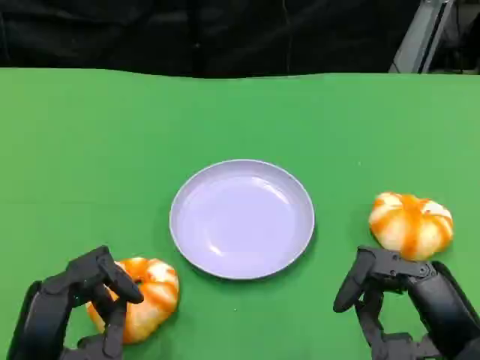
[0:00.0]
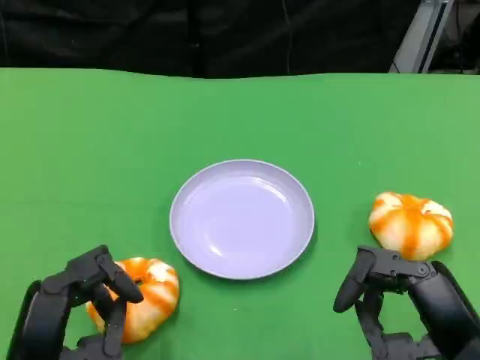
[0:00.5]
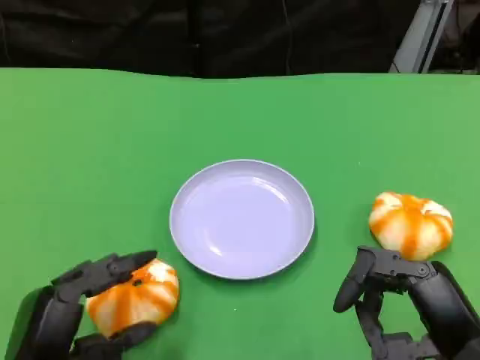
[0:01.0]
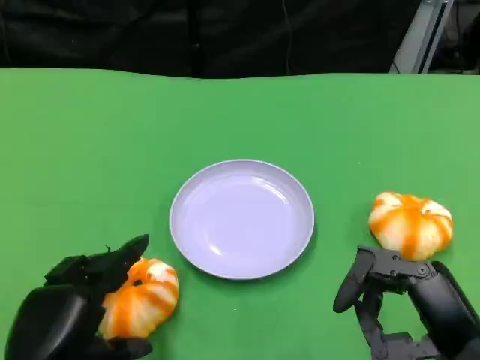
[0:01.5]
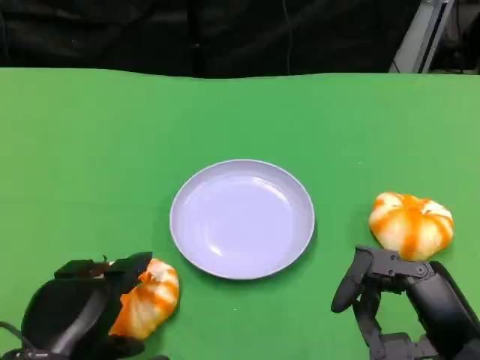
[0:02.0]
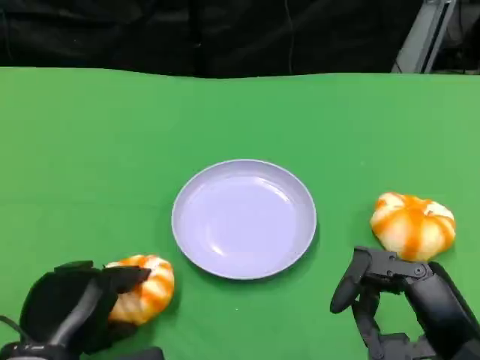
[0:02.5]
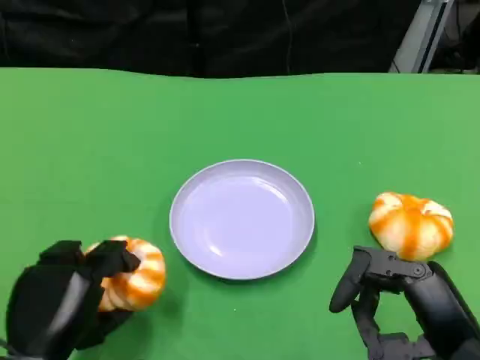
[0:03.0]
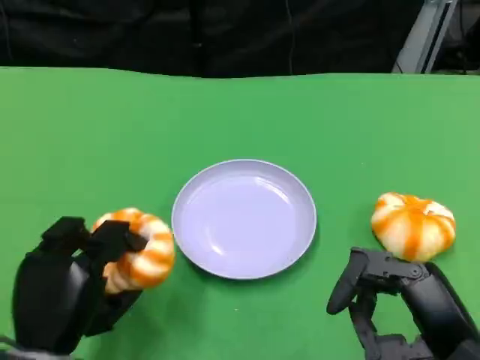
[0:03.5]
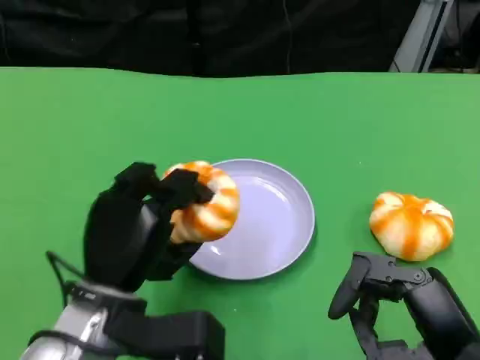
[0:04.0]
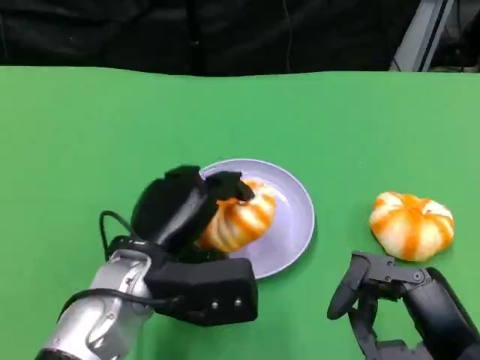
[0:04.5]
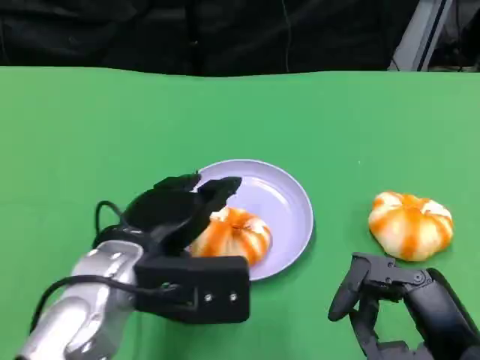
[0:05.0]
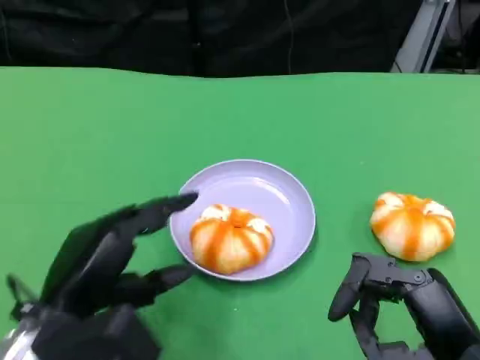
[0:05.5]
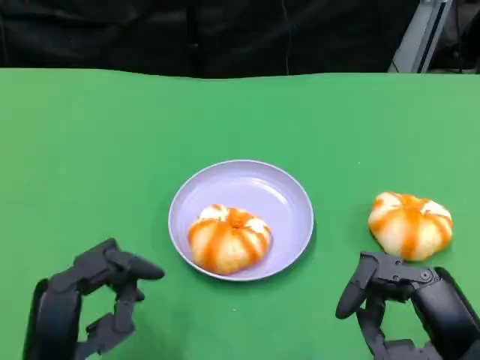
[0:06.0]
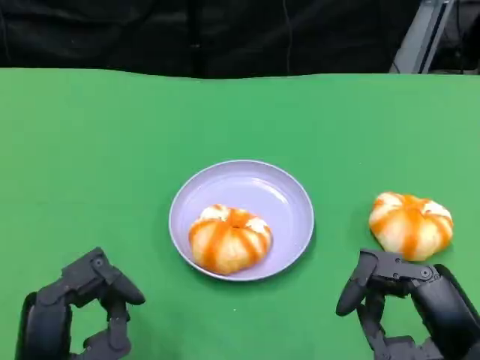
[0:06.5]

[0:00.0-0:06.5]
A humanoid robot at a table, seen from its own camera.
Task of the whole recording: Grasp the bread from the table and place it into the plate.
0:02.0 to 0:04.5: The left hand heads forward and to the right, covering some 10 cm.
0:04.5 to 0:06.5: The left hand travels backward and to the left by roughly 15 cm.

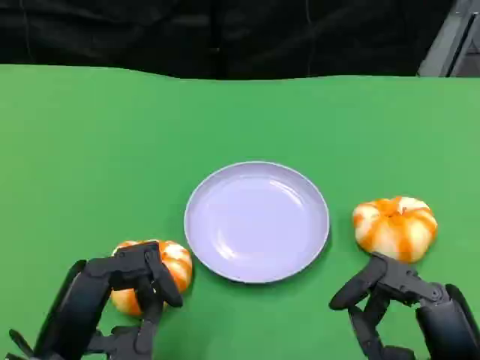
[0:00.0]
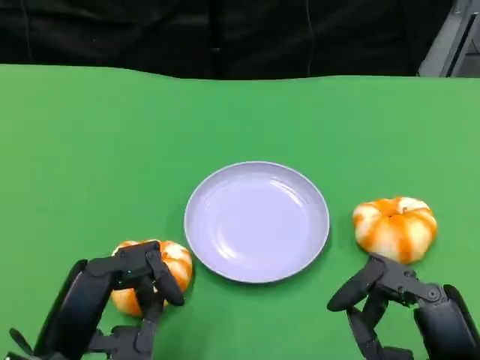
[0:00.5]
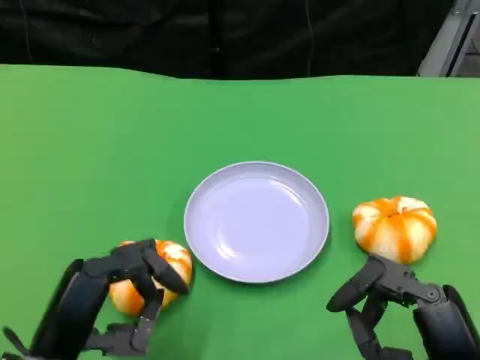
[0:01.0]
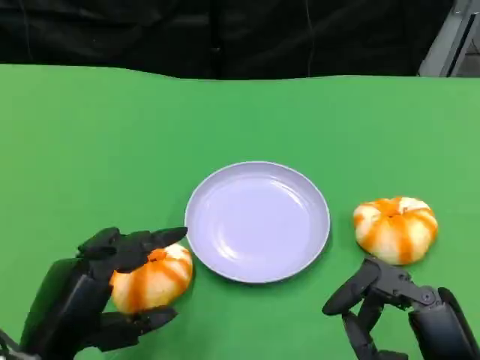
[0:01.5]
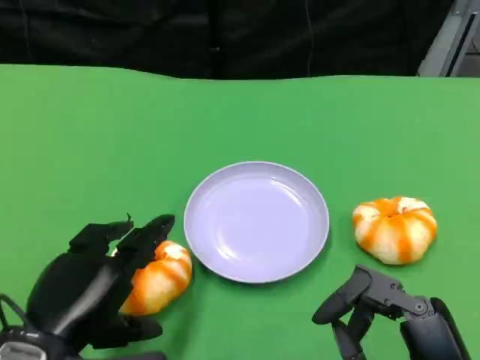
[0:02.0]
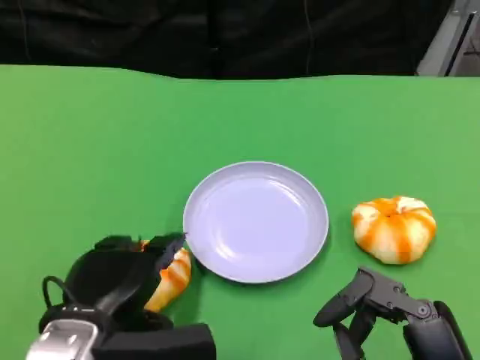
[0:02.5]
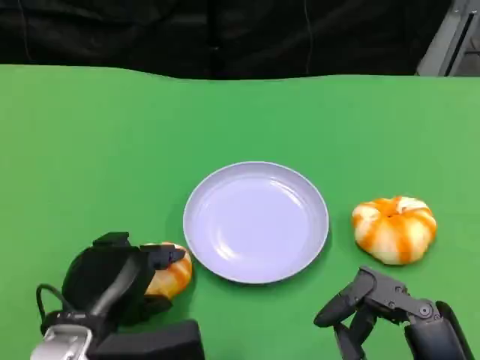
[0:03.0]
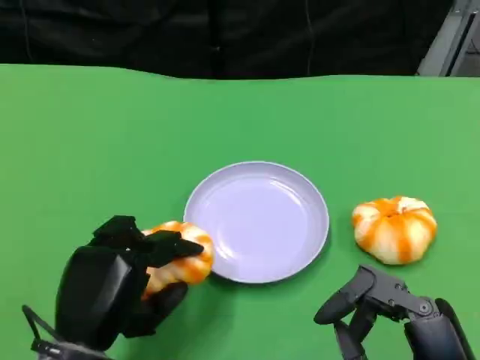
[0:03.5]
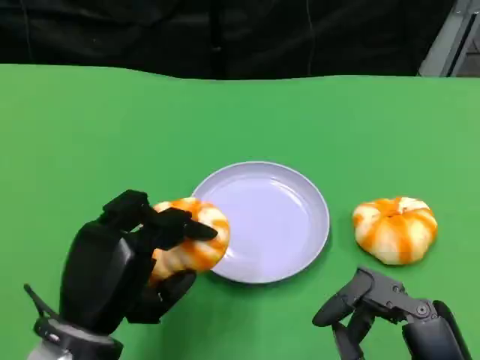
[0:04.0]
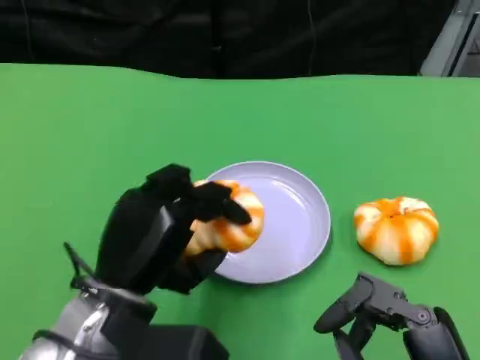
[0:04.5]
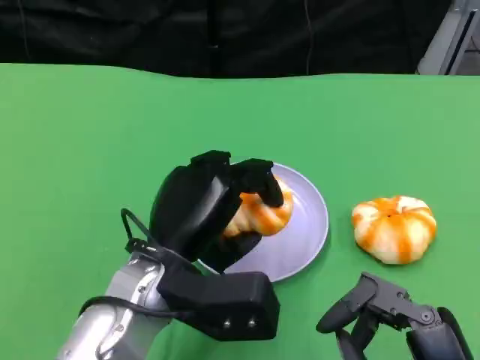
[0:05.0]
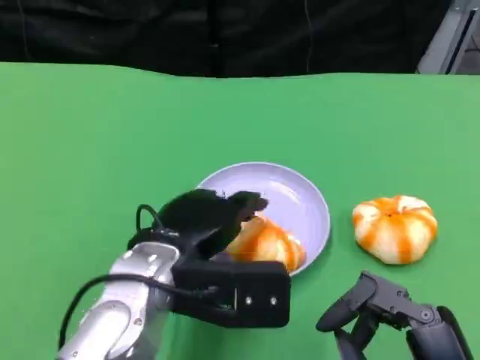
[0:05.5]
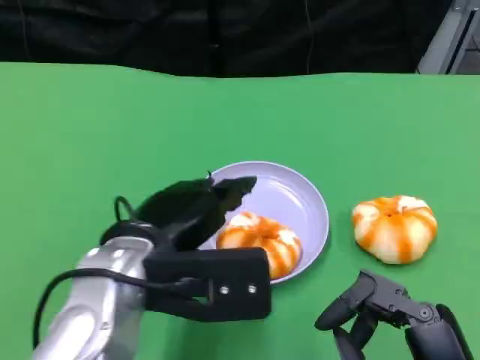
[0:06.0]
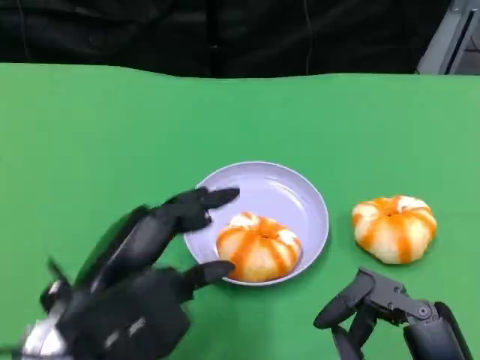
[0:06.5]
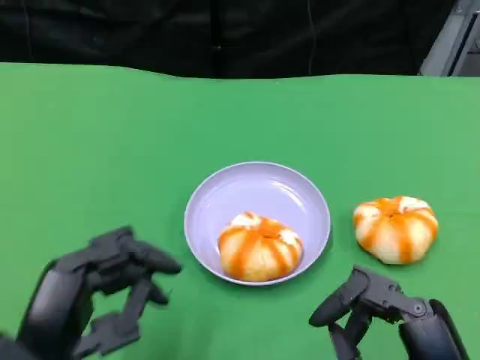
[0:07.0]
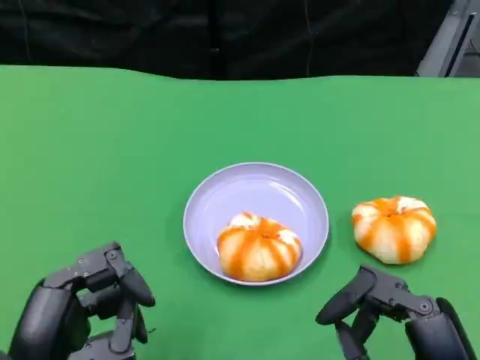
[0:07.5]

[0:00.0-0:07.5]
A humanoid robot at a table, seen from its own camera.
Task of the whole recording: Grasp the bread from the table and place it into the plate.
0:04.0 to 0:05.5: The left hand travels to the right and forward by roughly 10 cm.
0:05.5 to 0:07.5: The left hand heads backward and to the left, covering approximately 15 cm.

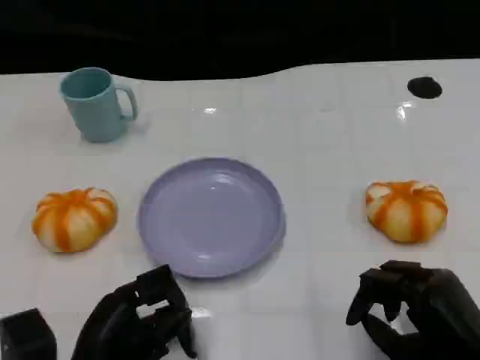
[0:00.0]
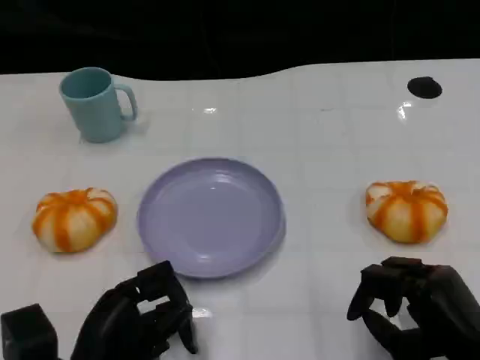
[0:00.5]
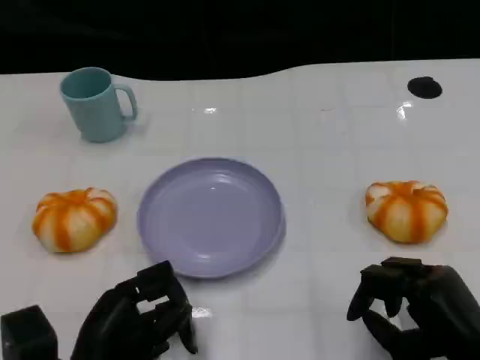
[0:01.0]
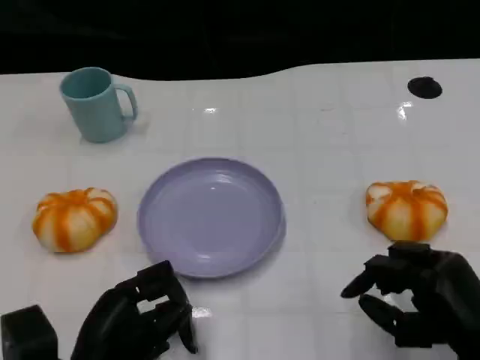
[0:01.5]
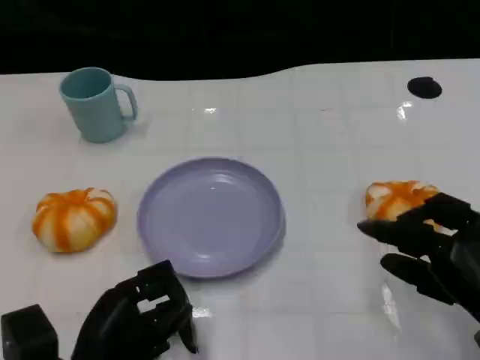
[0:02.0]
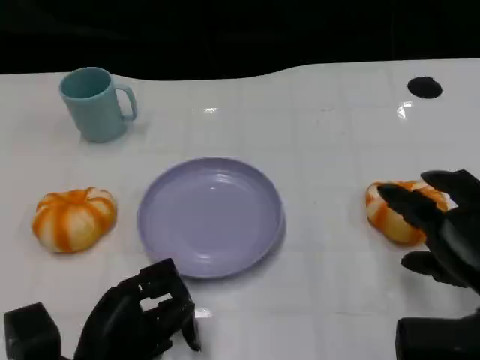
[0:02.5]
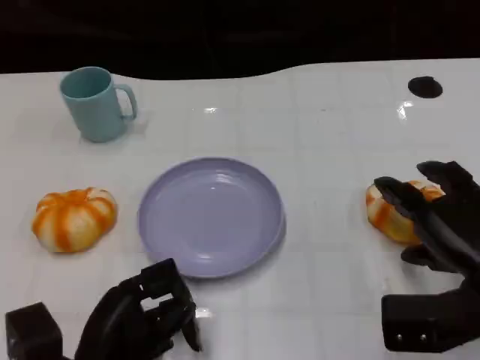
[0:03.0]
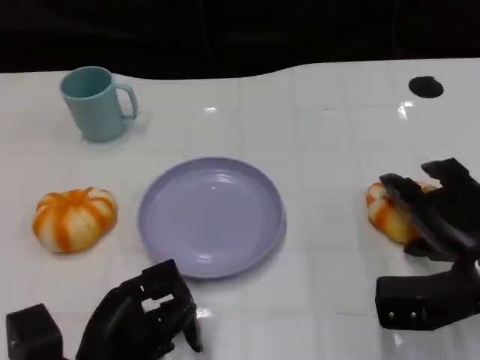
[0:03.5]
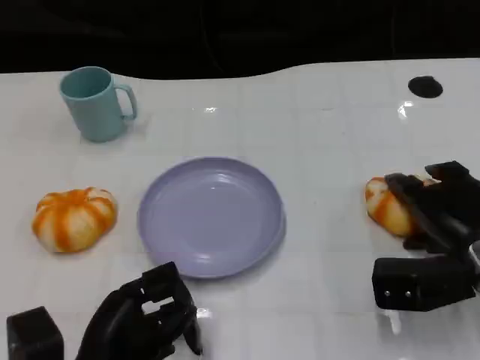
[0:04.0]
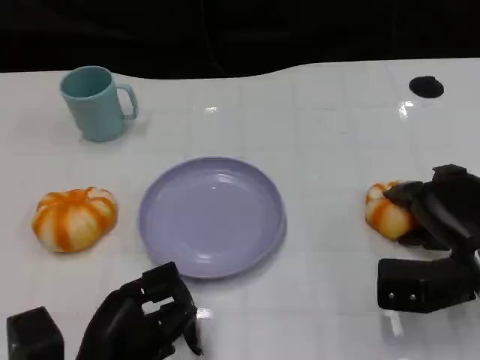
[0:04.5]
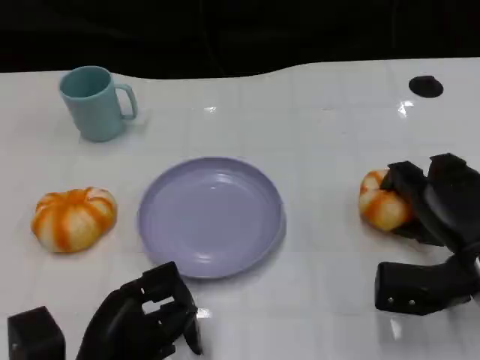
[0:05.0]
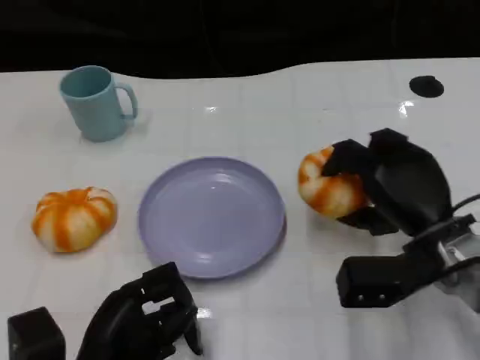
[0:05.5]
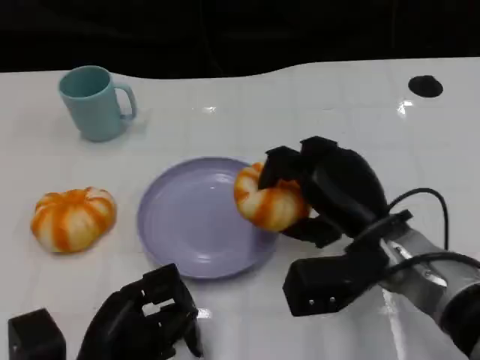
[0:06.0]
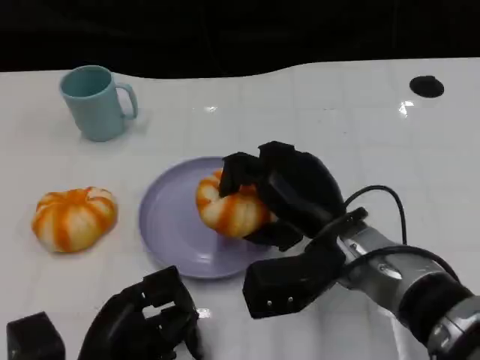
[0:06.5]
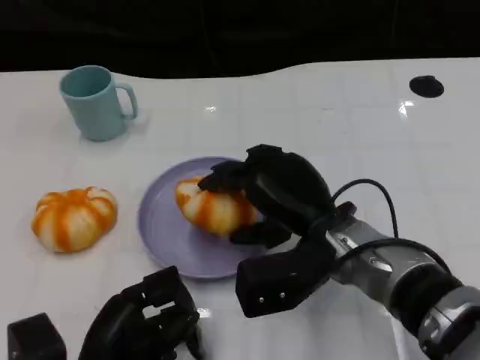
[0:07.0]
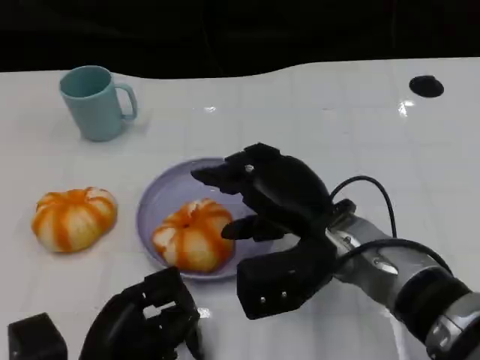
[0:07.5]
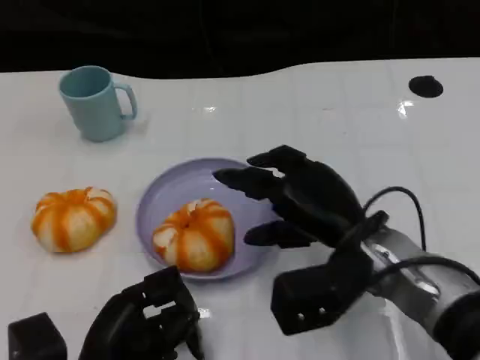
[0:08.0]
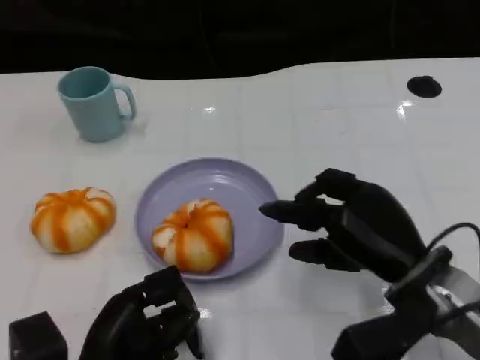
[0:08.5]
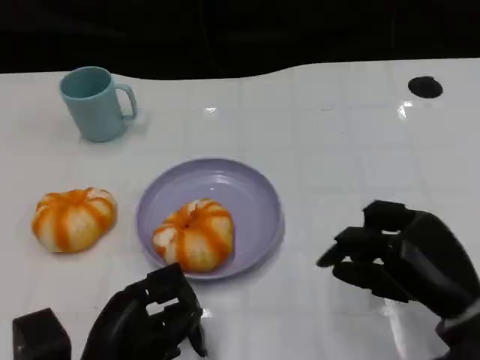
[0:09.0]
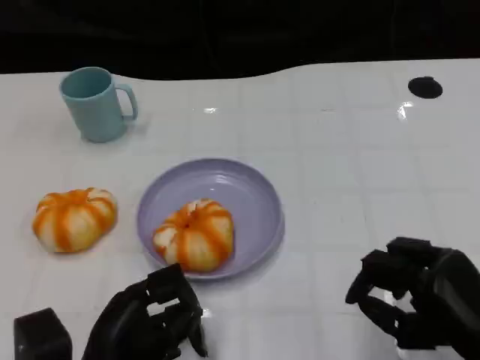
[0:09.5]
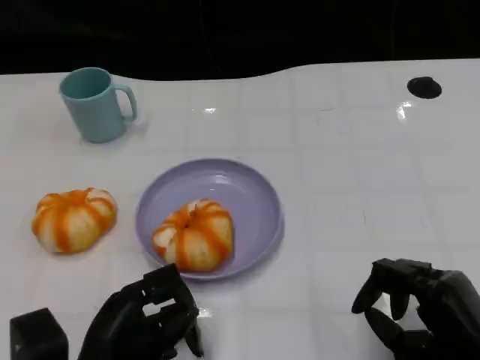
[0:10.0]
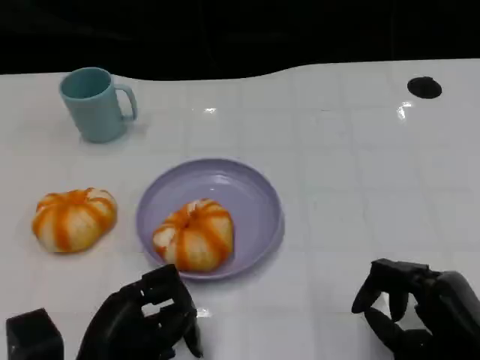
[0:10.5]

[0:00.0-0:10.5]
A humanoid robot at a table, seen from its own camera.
Task of the whole recording: Grasp the bread from the table and place it into the plate.
0:00.0 to 0:02.0: The right hand changes place by approximately 5 cm.
0:02.0 to 0:04.0: The right hand is displaced forward by about 10 cm.
0:04.0 to 0:06.5: The right hand heads to the left, covering about 15 cm.
0:06.5 to 0:08.5: The right hand heads to the right, covering approximately 10 cm.
0:08.5 to 0:10.5: The right hand shifts roughly 10 cm backward and to the right.

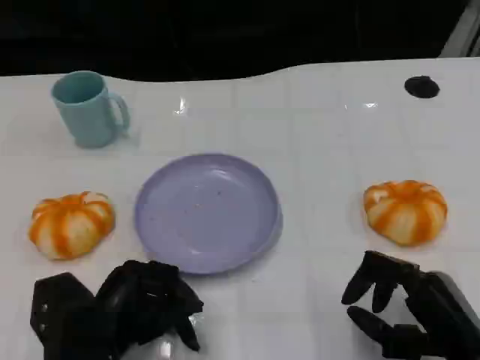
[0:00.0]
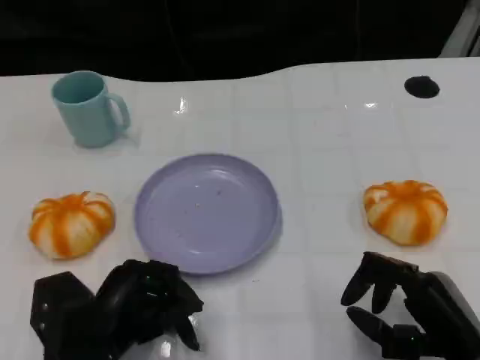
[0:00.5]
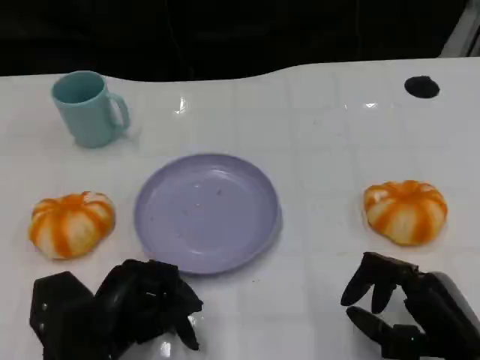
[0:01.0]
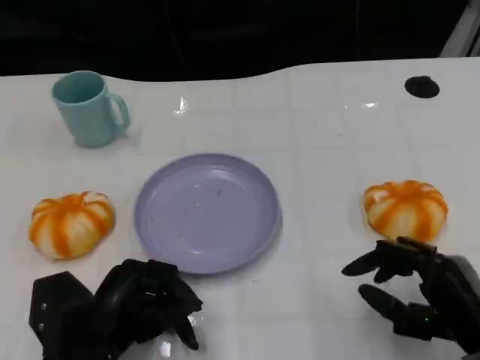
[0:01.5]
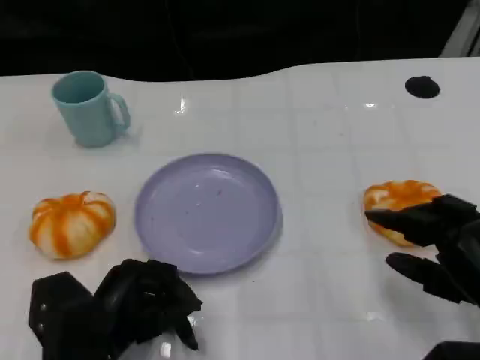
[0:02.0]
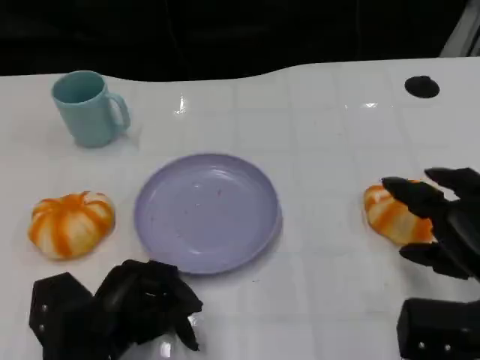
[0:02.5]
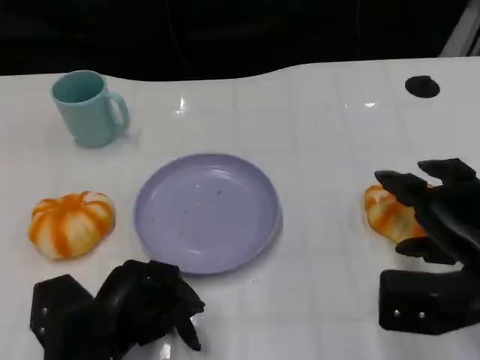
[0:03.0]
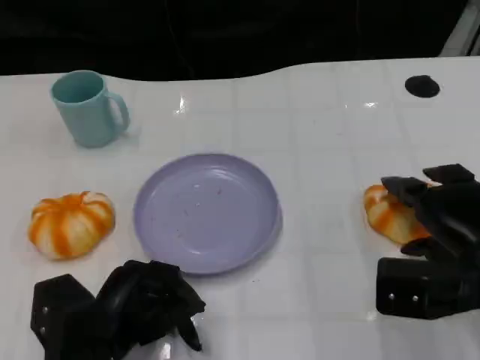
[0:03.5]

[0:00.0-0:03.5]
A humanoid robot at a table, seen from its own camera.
Task of the whole recording: Grasp the bread from the table and place it into the plate.
0:00.0 to 0:02.0: The right hand moves about 5 cm.
0:02.0 to 0:03.5: The right hand is displaced forward by approximately 5 cm.
